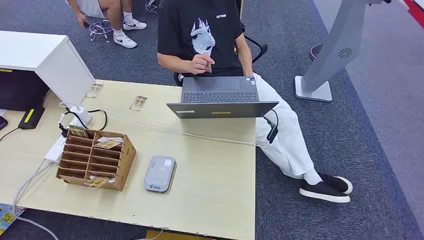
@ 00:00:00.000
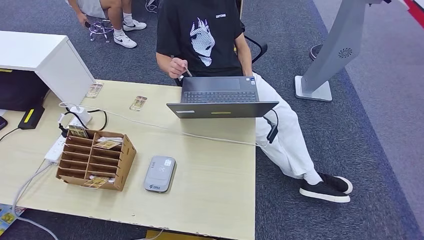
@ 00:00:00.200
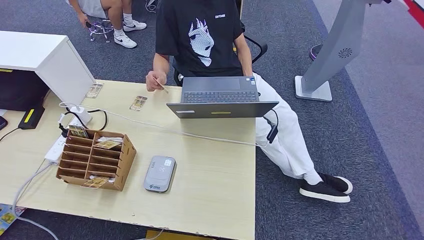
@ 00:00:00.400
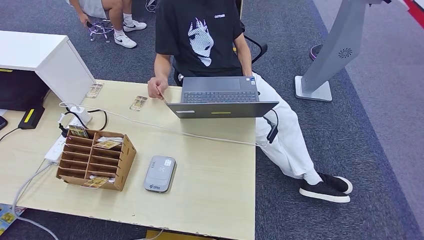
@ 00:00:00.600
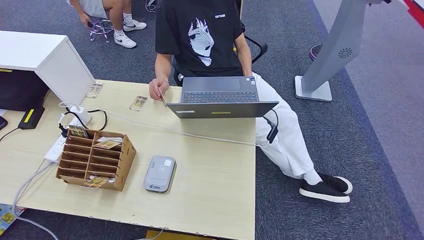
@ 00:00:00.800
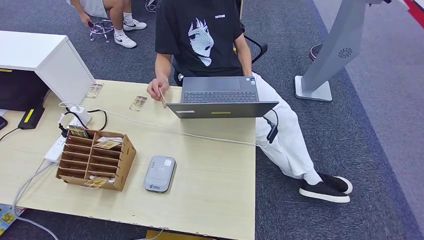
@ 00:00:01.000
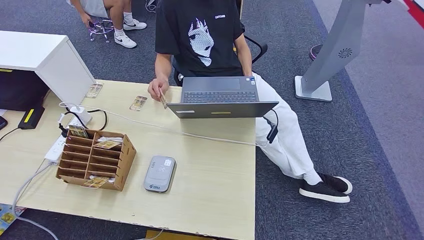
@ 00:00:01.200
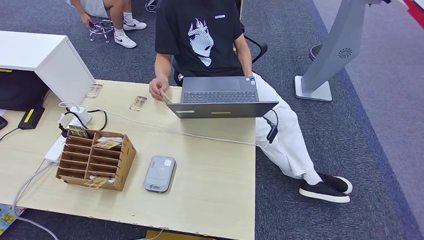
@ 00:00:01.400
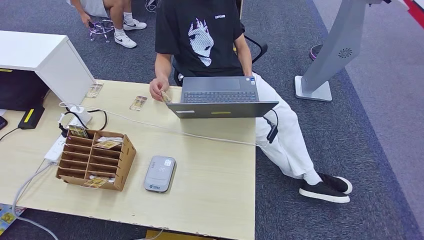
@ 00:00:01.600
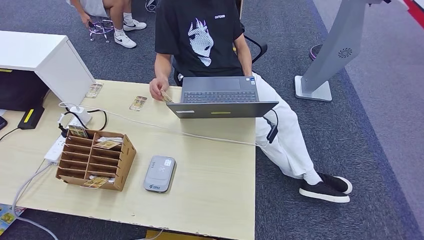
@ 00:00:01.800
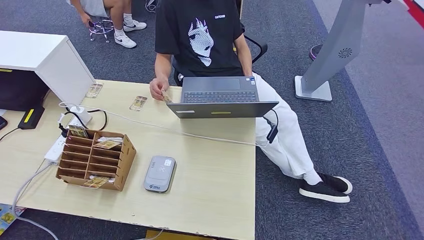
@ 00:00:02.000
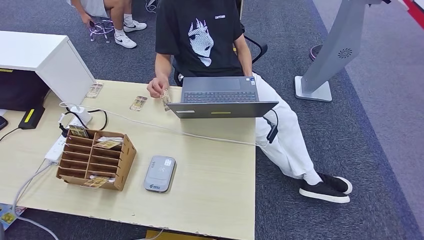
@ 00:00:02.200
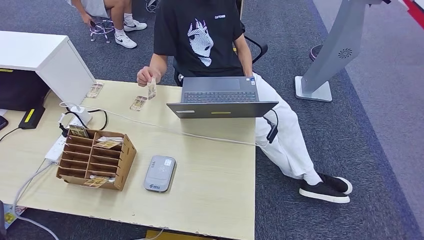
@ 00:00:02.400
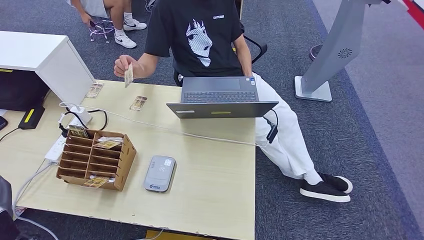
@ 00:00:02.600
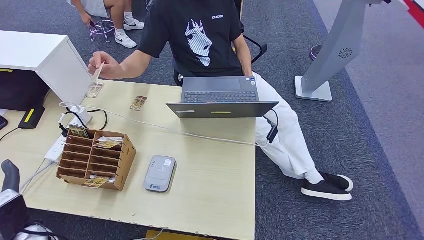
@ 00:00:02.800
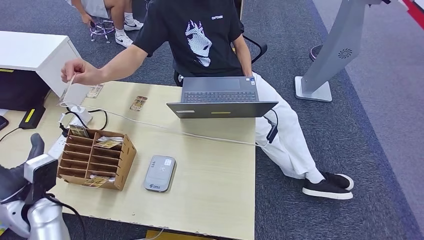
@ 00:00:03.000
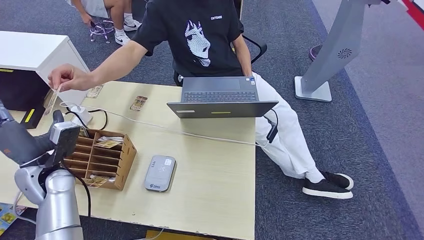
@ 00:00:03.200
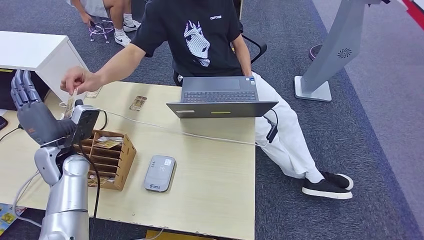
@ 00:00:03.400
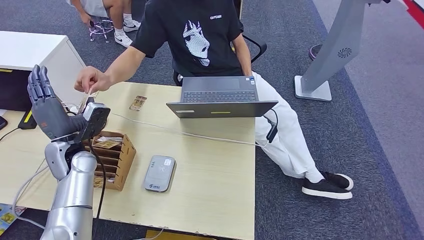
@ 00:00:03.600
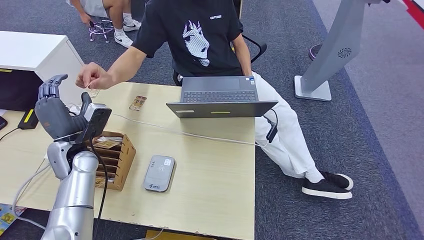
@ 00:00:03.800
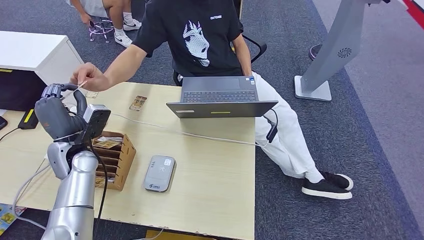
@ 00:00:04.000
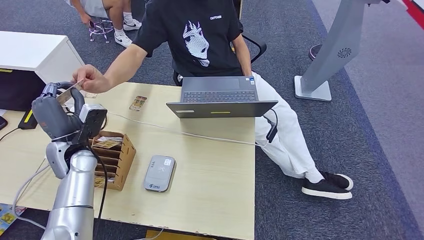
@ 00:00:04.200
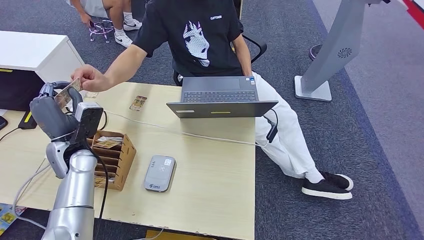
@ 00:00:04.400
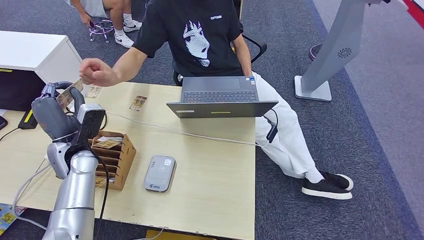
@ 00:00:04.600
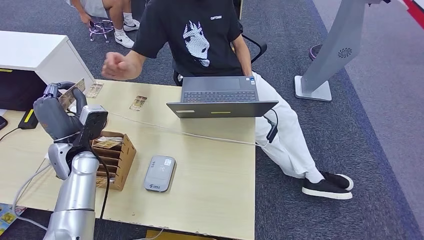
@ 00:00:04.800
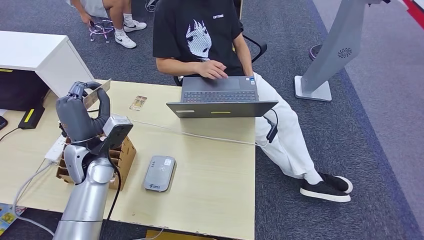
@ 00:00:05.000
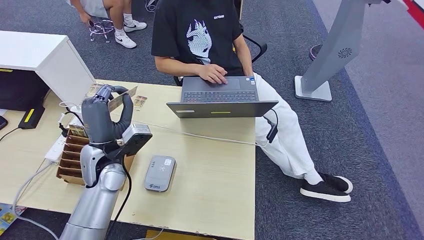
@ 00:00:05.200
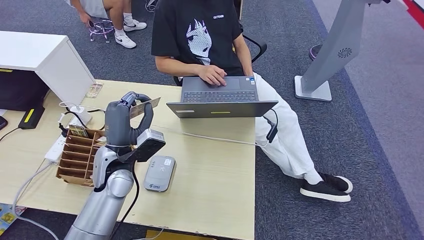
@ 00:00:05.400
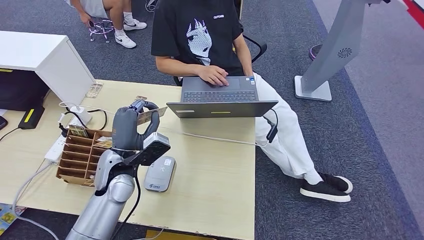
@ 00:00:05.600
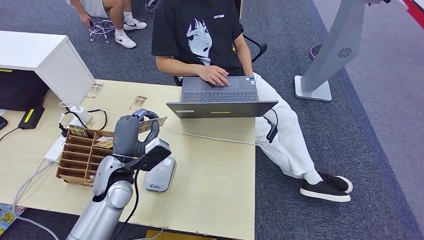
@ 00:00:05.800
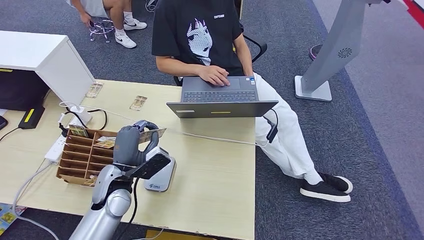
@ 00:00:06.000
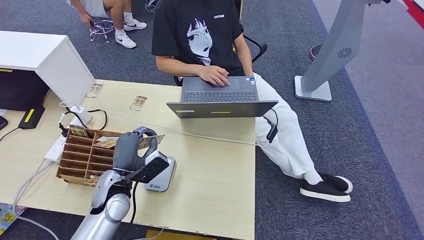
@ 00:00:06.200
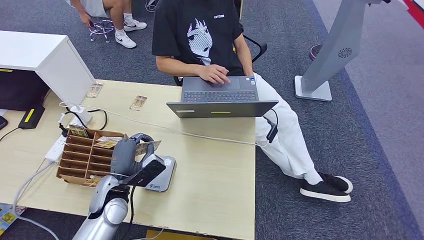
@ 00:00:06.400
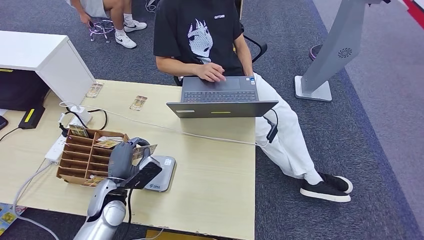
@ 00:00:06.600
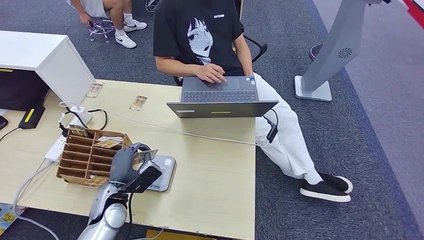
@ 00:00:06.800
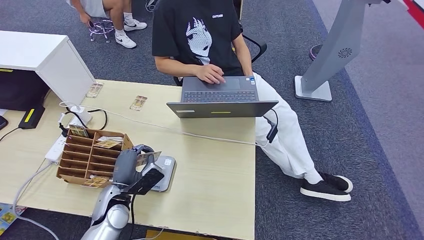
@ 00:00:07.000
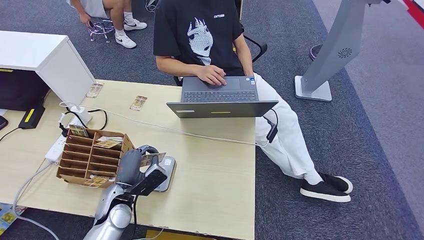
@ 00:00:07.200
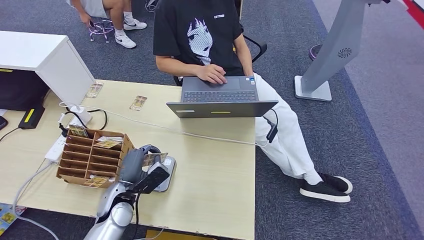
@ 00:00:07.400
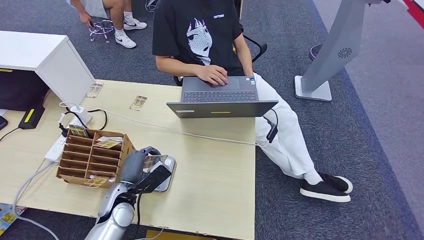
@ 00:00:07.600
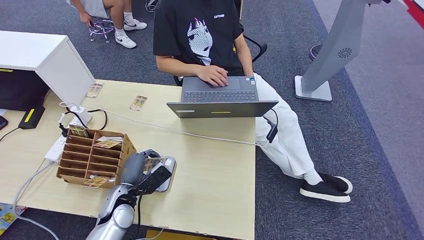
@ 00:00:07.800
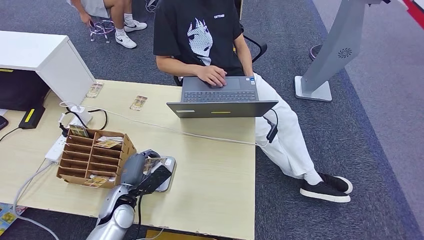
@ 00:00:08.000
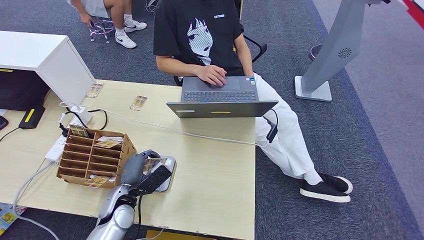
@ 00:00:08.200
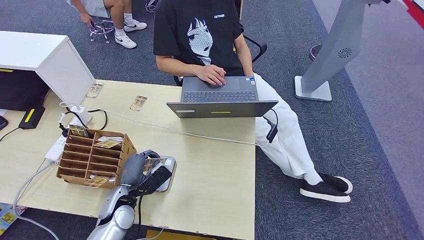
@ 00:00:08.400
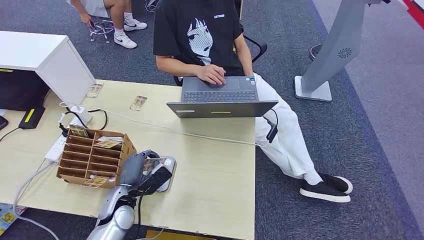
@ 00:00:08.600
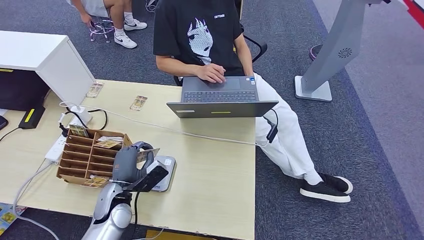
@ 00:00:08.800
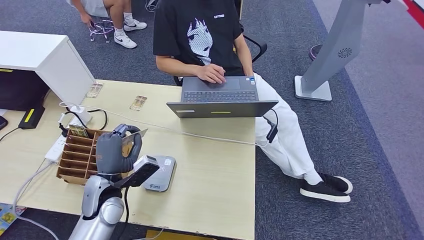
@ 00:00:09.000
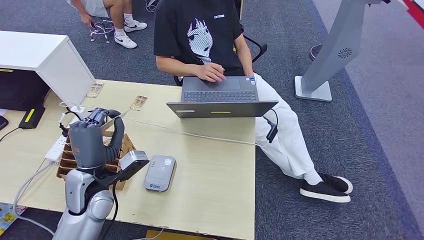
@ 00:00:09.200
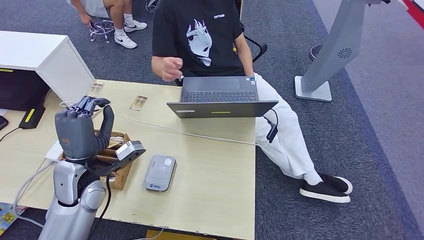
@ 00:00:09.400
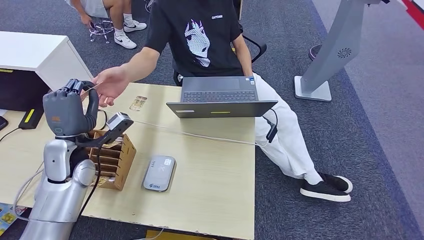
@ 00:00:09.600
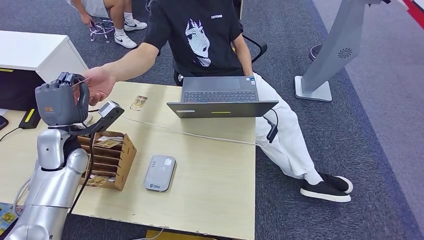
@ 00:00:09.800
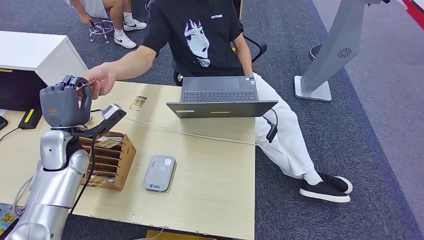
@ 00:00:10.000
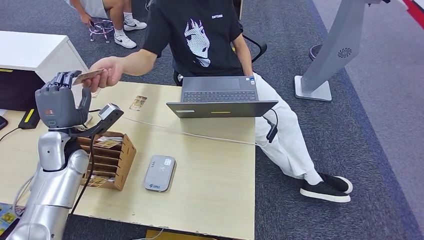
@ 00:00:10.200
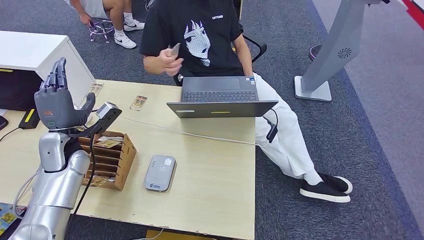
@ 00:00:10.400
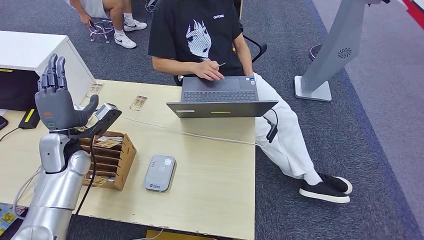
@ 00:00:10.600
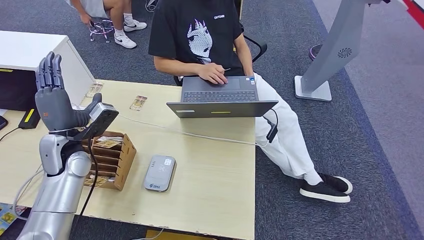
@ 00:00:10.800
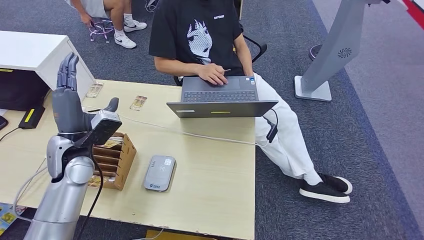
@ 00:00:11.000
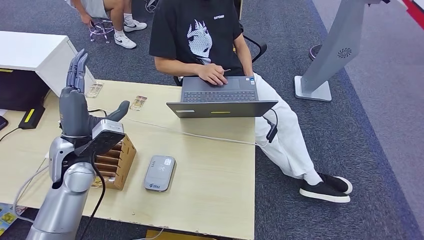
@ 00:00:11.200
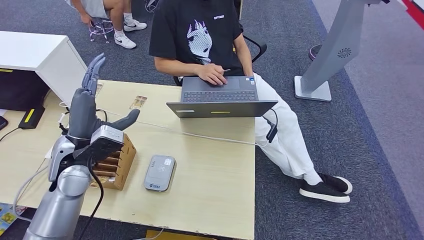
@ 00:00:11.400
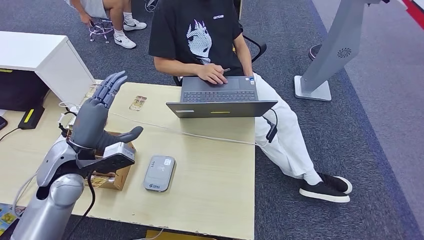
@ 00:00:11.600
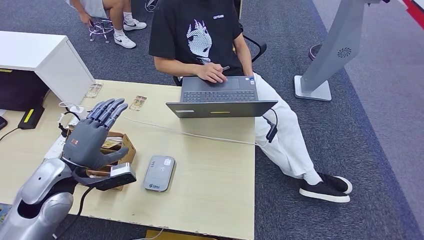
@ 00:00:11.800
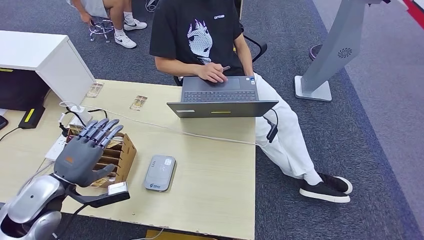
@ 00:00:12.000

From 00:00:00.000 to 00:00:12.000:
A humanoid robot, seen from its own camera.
Step, from 00:00:00.000 to 00:00:04.400: Take the ID card from the person's hand.
Step, from 00:00:04.800 to 00:00:07.000: Place the ID card on the card reader.
Step, from 00:00:07.200 to 00:00:10.800: Hand the ID card to the person.
From 00:00:01.600 to 00:00:03.000: The left hand goes some 25 cm upward and forward.
From 00:00:03.000 to 00:00:04.400: The left hand goes approximately 10 cm forward.
From 00:00:04.400 to 00:00:06.000: The left hand shifts approximately 15 cm to the right, backward and downward.
From 00:00:06.000 to 00:00:07.600: The left hand travels downward by some 10 cm.
From 00:00:07.600 to 00:00:09.000: The left hand is displaced upward by some 5 cm.
From 00:00:09.000 to 00:00:10.400: The left hand heads to the left, forward and upward, covering about 15 cm.
From 00:00:10.400 to 00:00:12.000: The left hand goes approximately 15 cm backward.

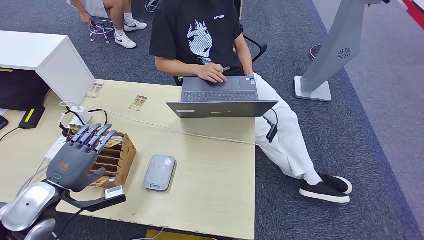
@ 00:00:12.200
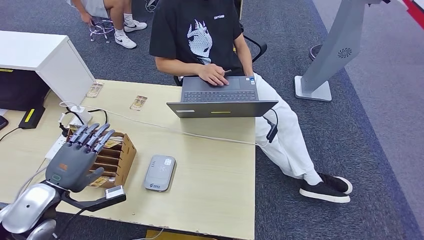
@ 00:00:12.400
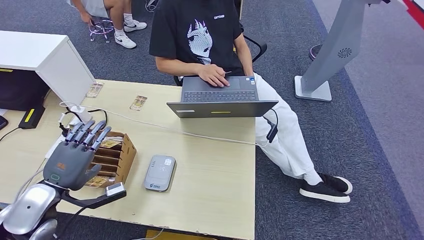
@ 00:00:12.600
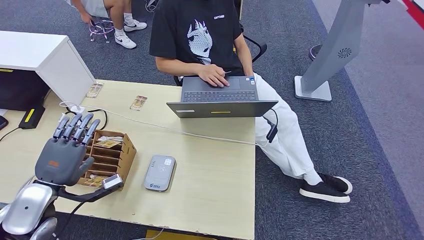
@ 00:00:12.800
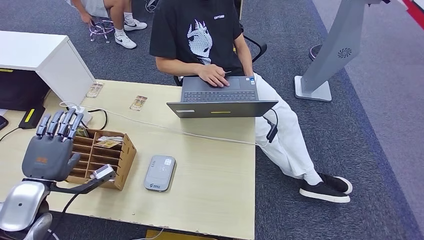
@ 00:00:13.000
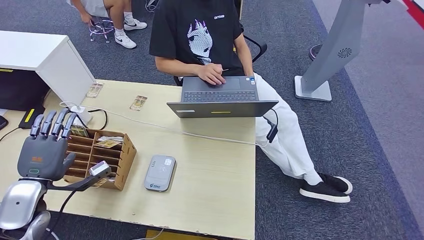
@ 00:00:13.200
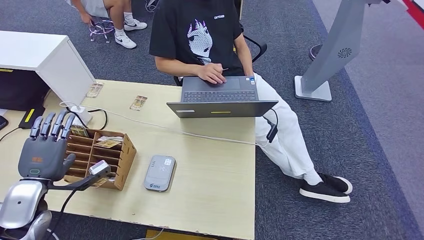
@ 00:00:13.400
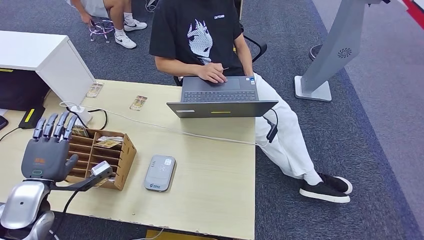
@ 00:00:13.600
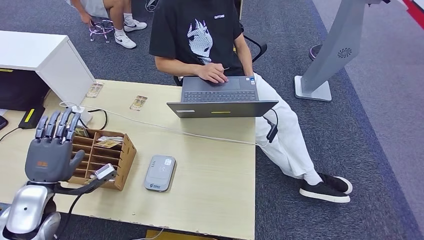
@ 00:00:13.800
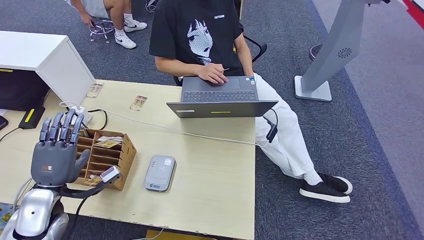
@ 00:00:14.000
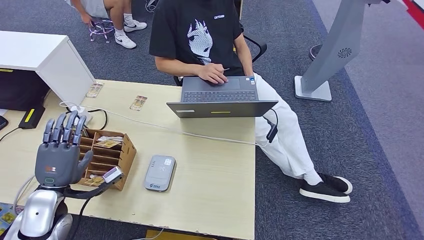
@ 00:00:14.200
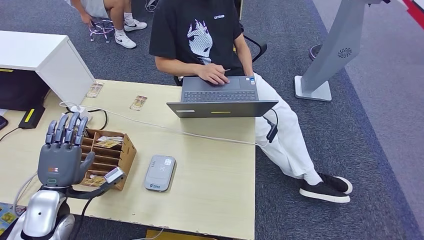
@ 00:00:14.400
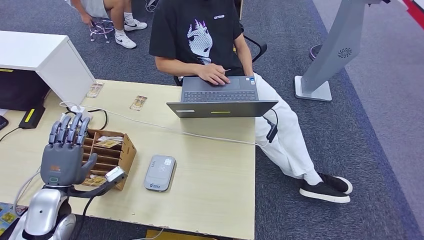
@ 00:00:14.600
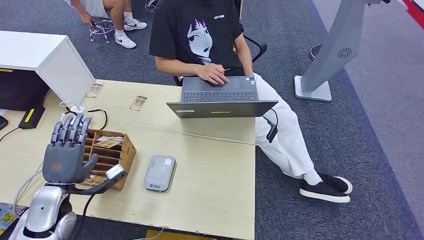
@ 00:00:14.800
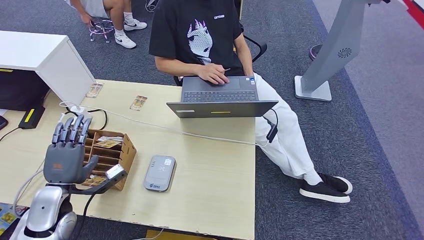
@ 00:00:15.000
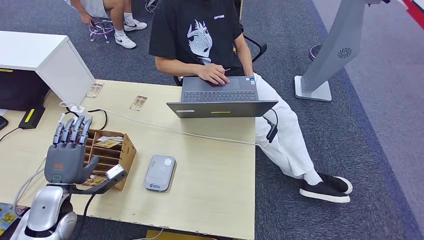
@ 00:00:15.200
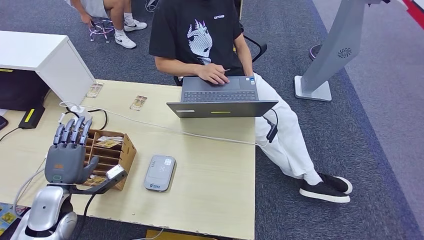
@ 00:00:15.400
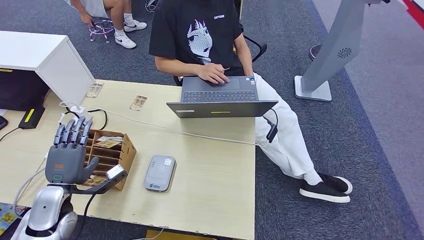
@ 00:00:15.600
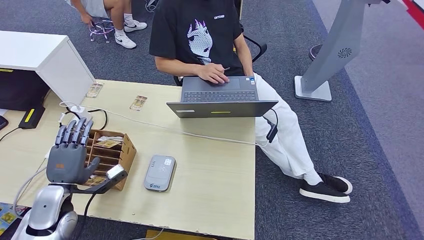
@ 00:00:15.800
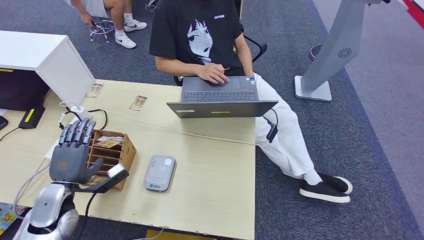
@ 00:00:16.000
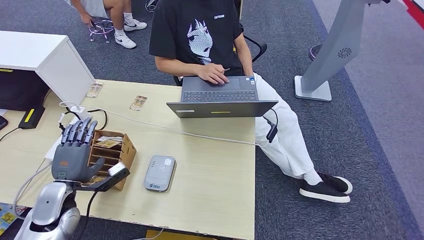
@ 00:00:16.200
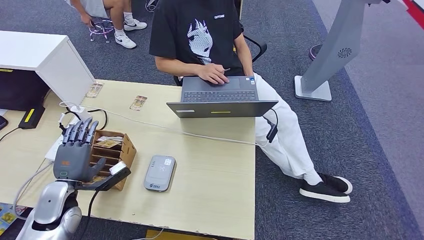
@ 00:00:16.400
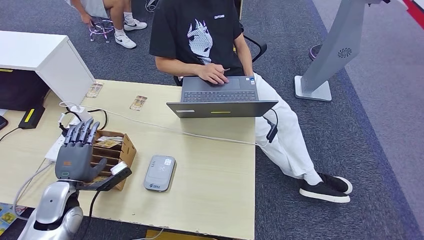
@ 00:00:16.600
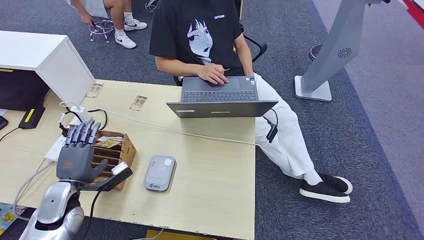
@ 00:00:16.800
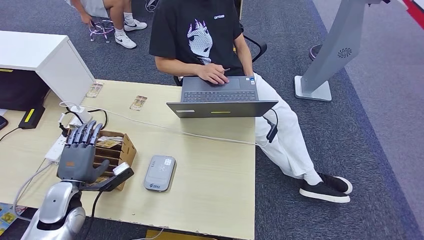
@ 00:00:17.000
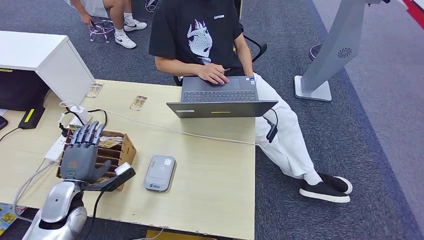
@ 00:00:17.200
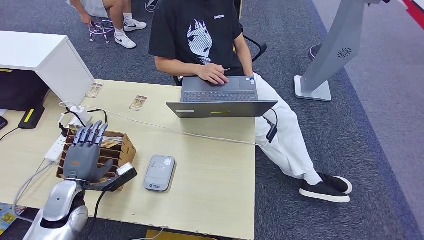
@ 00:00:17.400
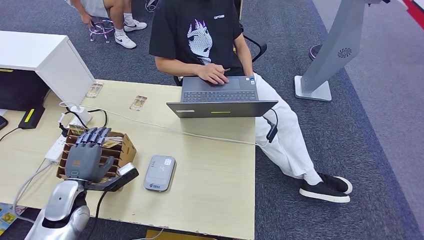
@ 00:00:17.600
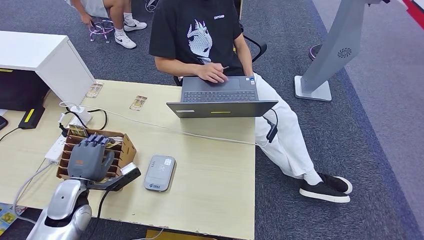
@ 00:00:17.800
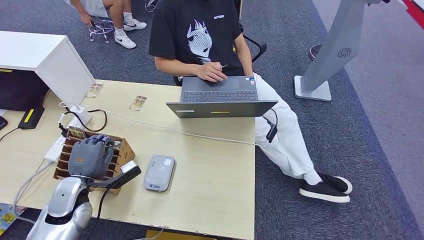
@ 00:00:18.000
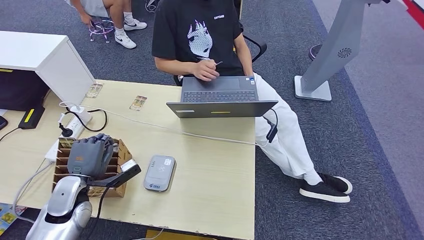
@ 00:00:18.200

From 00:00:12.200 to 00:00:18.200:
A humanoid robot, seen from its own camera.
From 00:00:13.800 to 00:00:16.600: The hands stay close to where they were, moving slightly.
From 00:00:16.600 to 00:00:18.200: There are only small adjustments of the hands.
